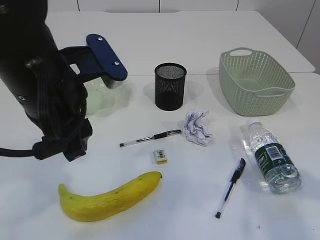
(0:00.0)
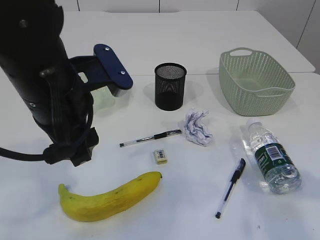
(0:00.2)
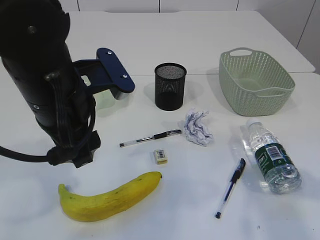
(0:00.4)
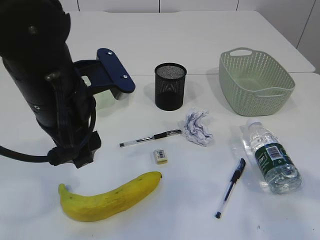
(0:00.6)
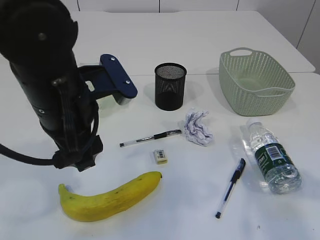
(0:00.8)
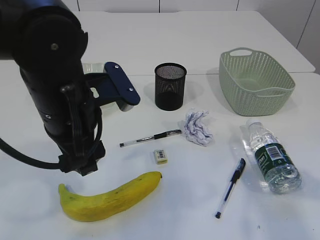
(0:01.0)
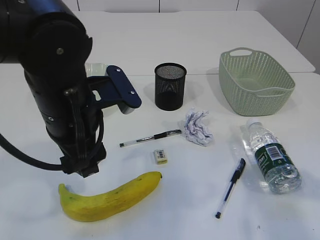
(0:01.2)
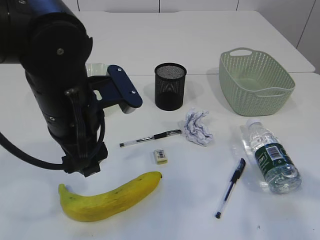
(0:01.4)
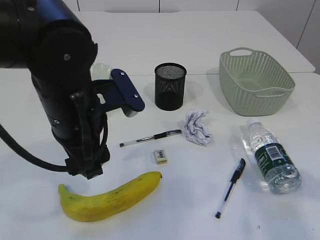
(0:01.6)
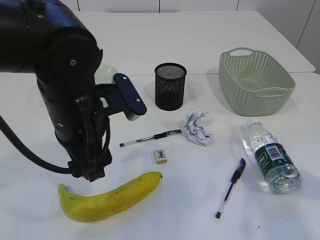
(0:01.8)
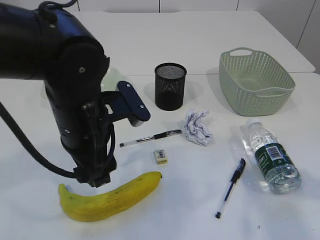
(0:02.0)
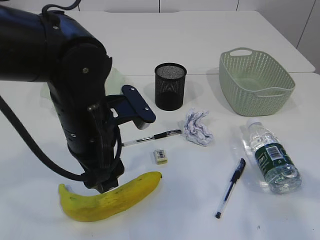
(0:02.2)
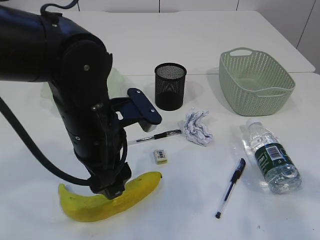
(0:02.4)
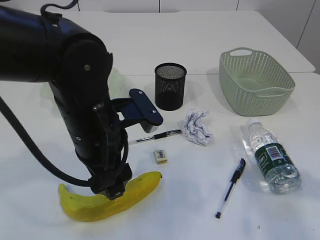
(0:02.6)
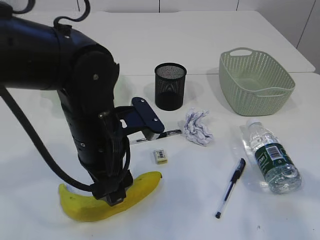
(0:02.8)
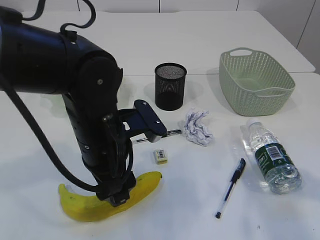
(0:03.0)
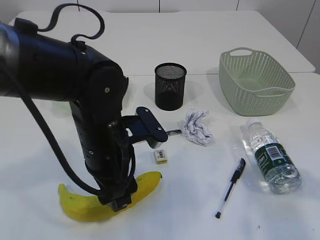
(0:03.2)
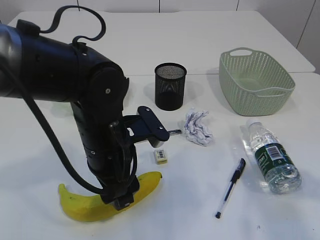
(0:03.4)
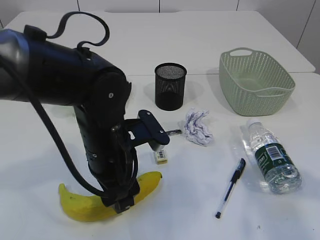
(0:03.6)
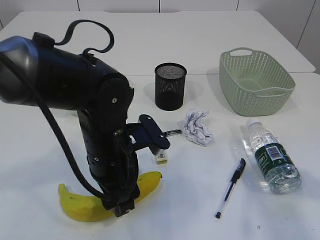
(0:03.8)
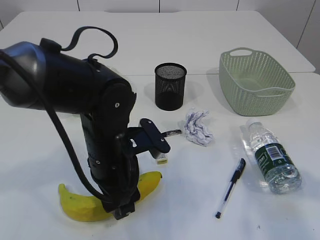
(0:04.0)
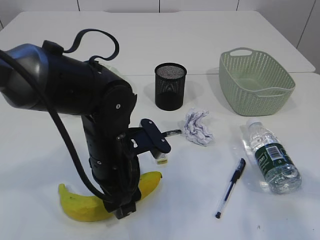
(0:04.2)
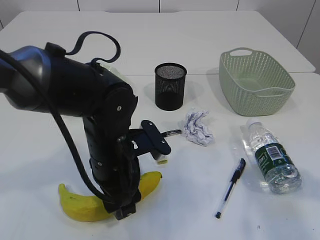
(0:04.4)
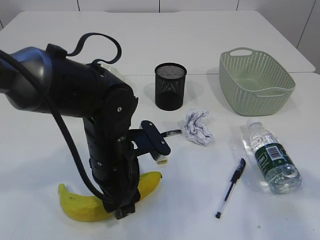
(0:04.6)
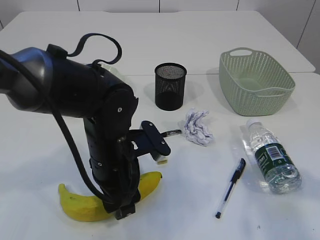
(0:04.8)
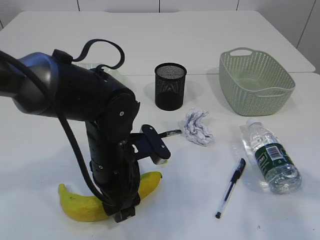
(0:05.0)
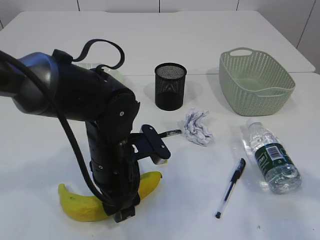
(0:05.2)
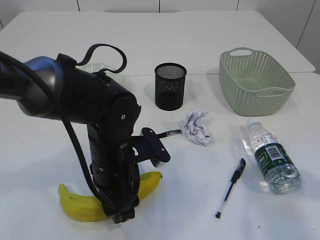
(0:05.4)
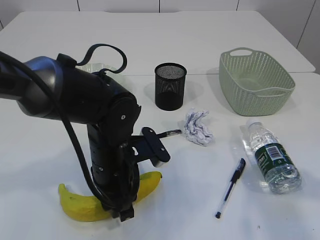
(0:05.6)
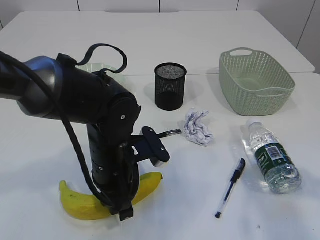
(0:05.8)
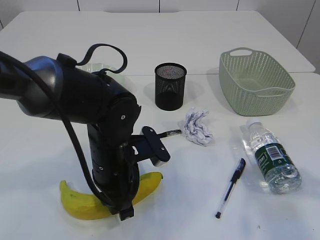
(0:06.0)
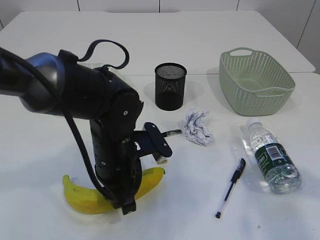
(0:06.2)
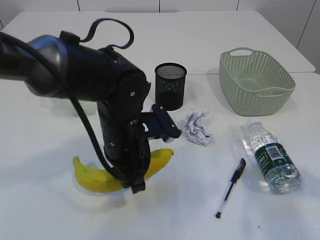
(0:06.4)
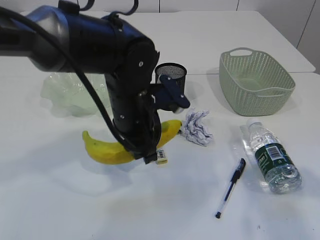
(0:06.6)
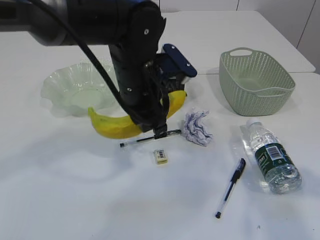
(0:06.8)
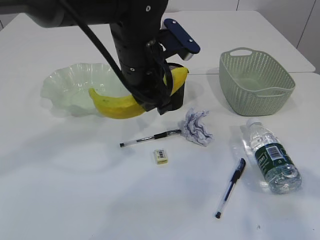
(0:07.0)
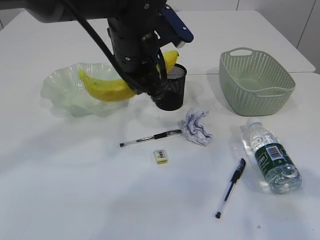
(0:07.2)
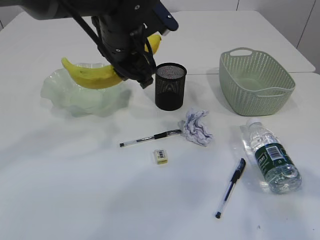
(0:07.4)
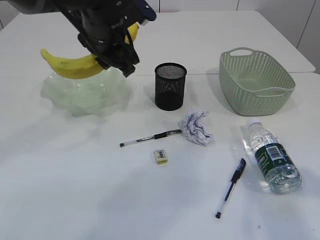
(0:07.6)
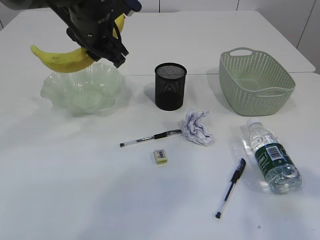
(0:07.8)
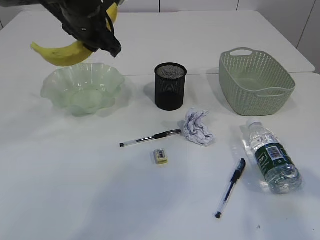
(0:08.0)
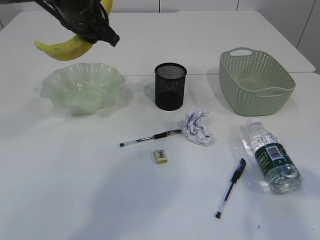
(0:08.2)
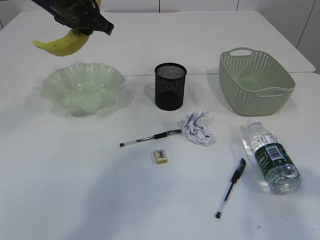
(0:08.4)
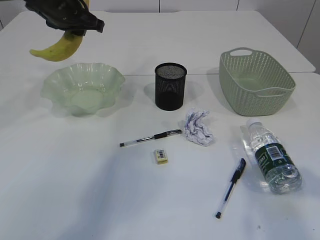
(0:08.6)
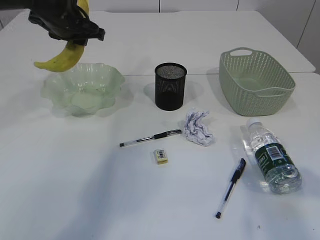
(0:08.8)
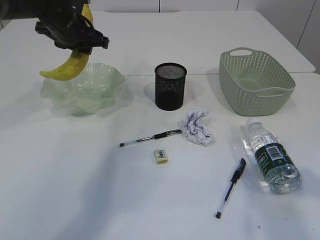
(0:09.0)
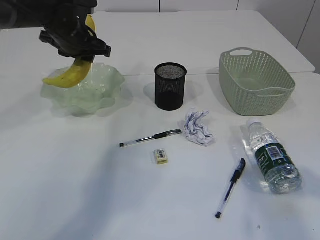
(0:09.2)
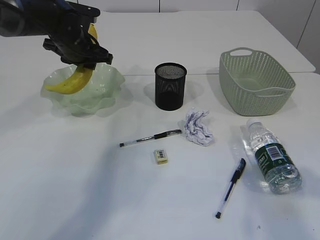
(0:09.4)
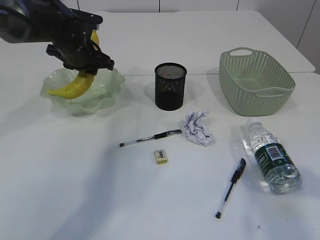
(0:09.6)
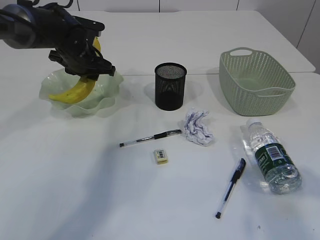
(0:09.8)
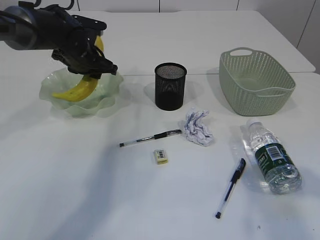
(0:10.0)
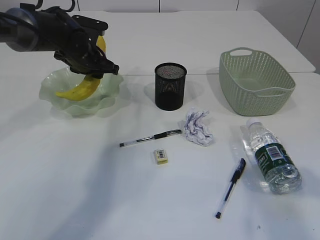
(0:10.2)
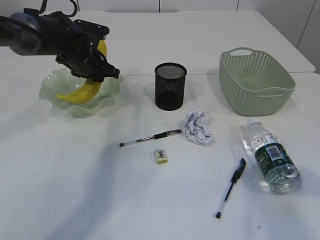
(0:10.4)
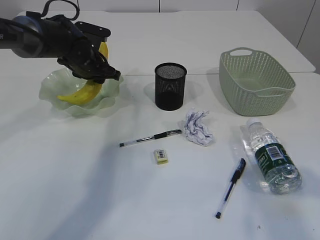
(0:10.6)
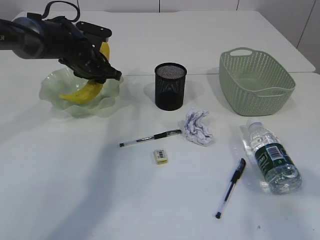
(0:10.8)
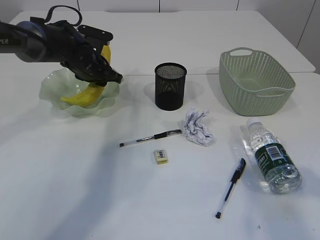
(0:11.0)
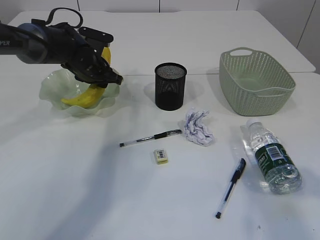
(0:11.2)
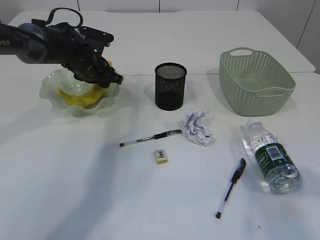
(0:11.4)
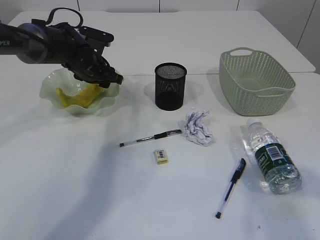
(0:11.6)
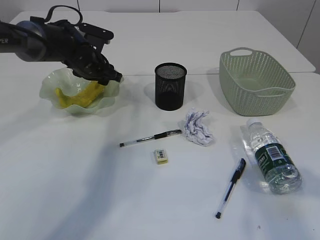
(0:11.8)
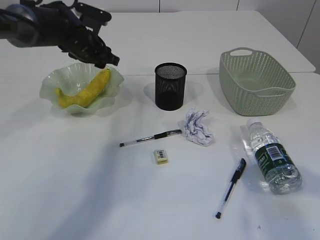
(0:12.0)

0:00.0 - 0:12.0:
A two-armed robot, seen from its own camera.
Step, 0:06.6 - 0:12.0: Place the banana in the plate.
0:00.0 - 0:01.6: The left gripper ends up roughly 5 cm from where it was.
0:01.6 - 0:03.0: The left gripper ends up approximately 5 cm from where it was.
0:03.0 - 0:04.4: The grippers move only a little.
0:04.4 - 0:06.0: The left gripper closes.
0:06.0 - 0:07.6: The left gripper shifts about 20 cm upward and forward.
0:07.6 - 0:09.0: The left gripper moves to the left and forward, about 15 cm.
0:09.0 - 0:10.4: The left gripper goes roughly 10 cm downward.
0:10.4 - 0:12.0: There are only small adjustments of the grippers.

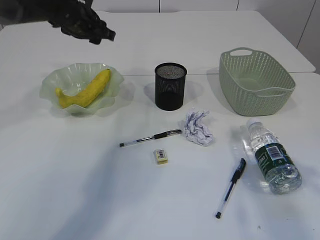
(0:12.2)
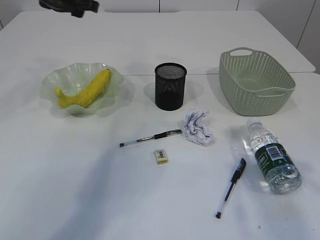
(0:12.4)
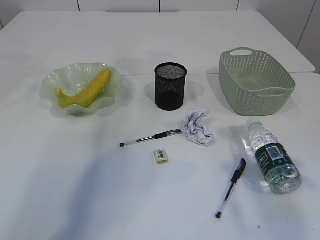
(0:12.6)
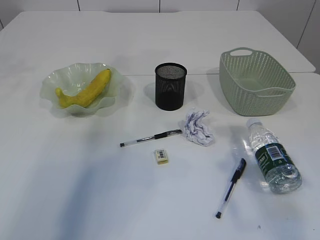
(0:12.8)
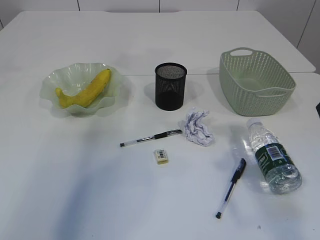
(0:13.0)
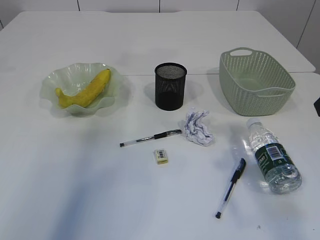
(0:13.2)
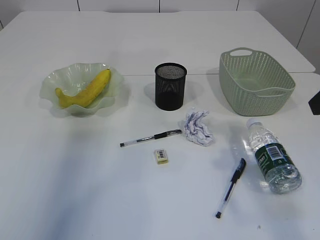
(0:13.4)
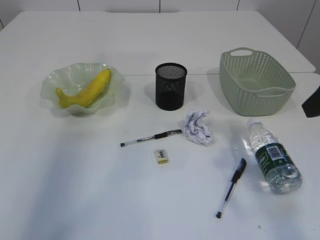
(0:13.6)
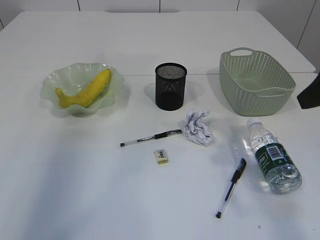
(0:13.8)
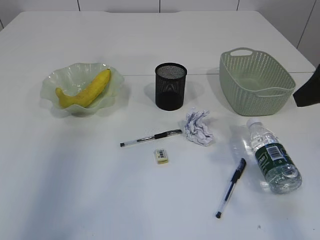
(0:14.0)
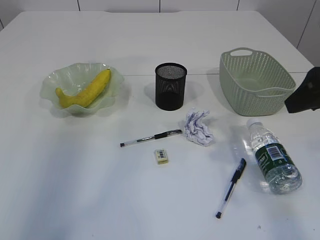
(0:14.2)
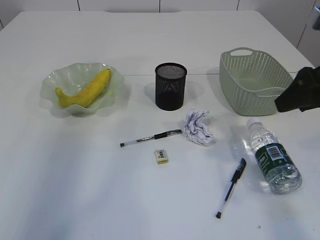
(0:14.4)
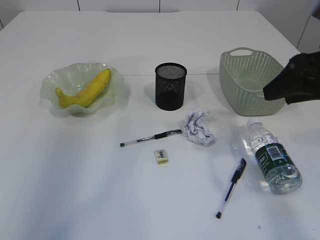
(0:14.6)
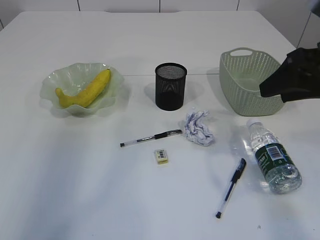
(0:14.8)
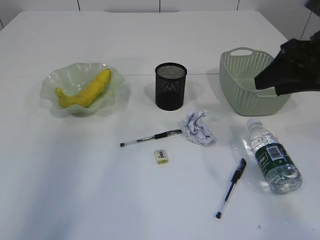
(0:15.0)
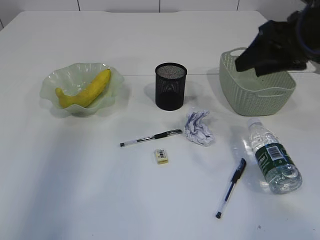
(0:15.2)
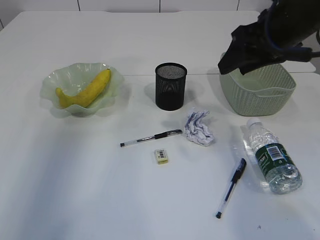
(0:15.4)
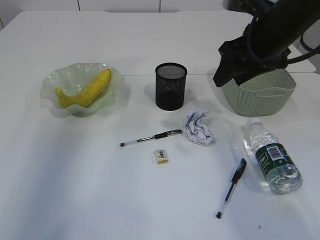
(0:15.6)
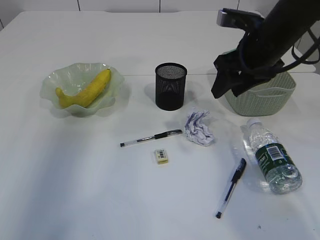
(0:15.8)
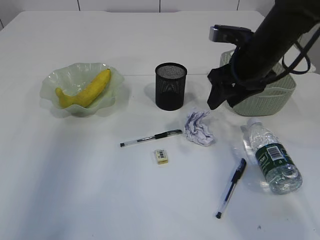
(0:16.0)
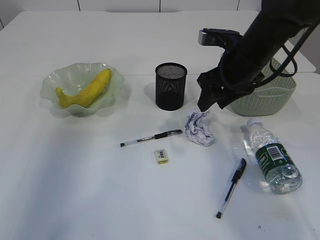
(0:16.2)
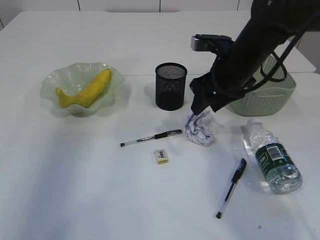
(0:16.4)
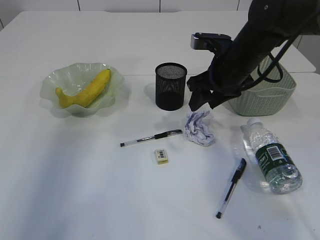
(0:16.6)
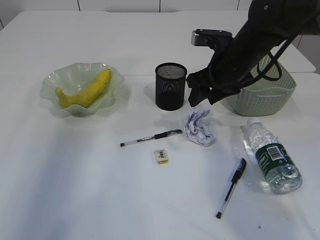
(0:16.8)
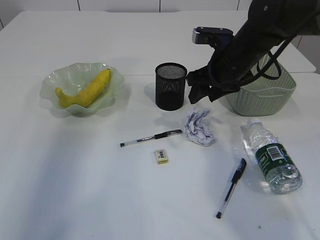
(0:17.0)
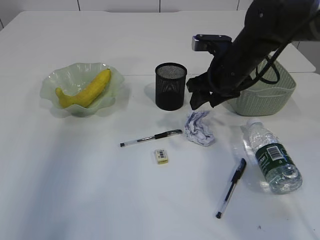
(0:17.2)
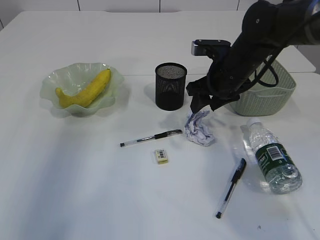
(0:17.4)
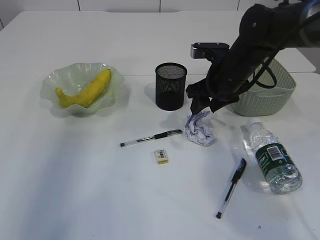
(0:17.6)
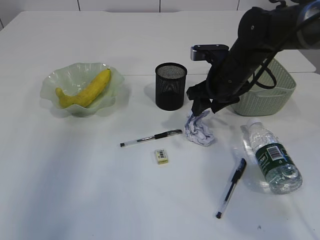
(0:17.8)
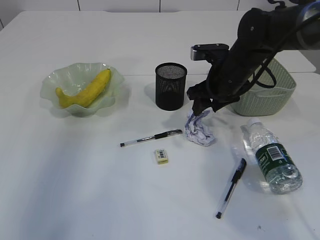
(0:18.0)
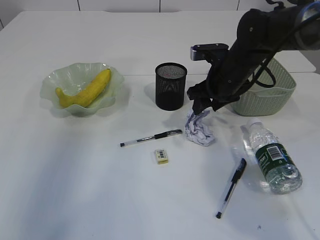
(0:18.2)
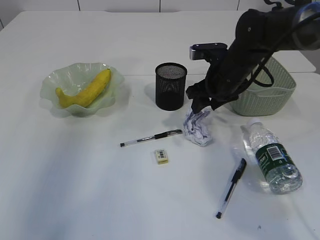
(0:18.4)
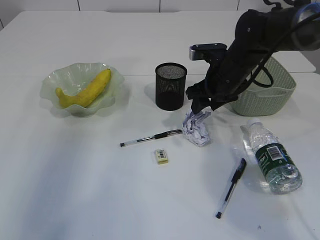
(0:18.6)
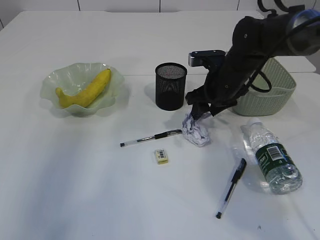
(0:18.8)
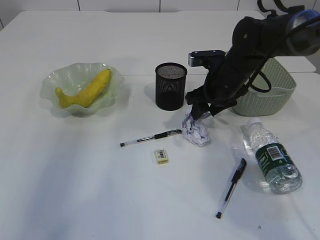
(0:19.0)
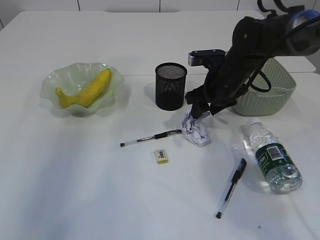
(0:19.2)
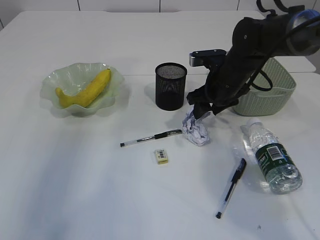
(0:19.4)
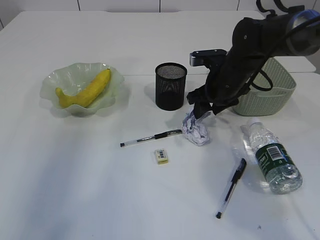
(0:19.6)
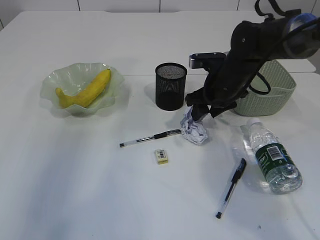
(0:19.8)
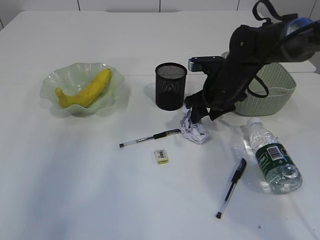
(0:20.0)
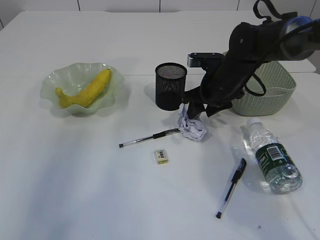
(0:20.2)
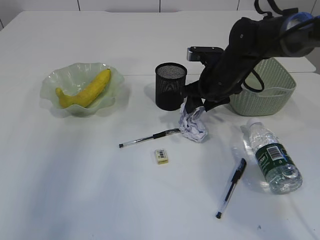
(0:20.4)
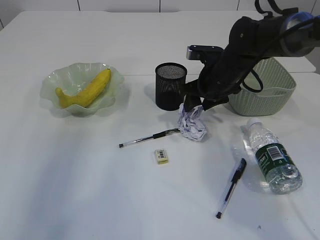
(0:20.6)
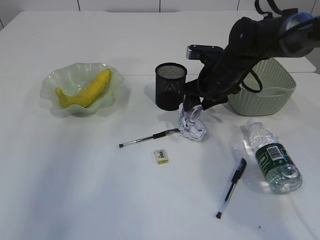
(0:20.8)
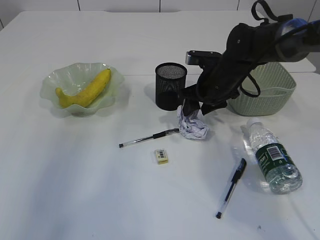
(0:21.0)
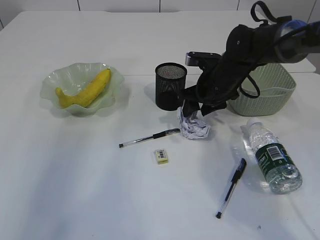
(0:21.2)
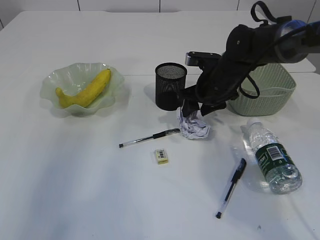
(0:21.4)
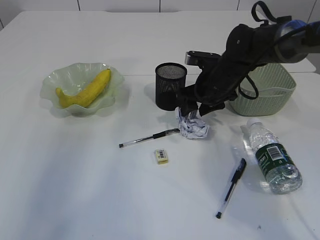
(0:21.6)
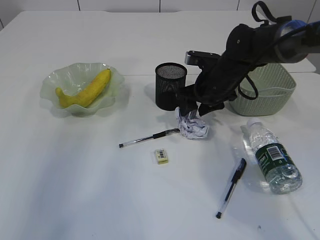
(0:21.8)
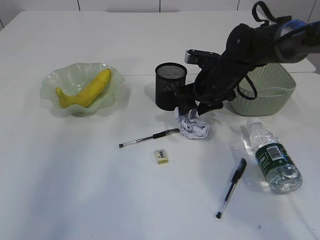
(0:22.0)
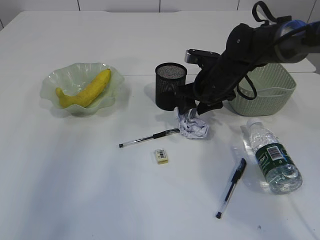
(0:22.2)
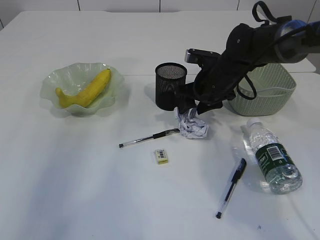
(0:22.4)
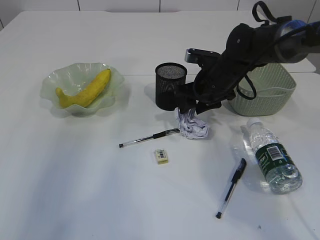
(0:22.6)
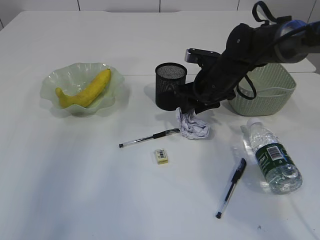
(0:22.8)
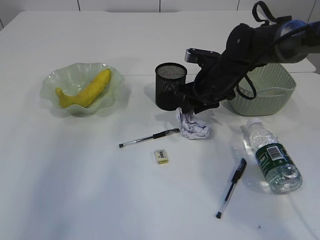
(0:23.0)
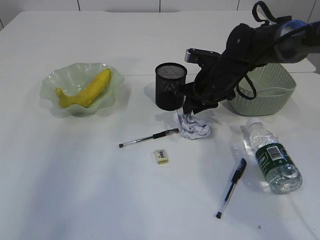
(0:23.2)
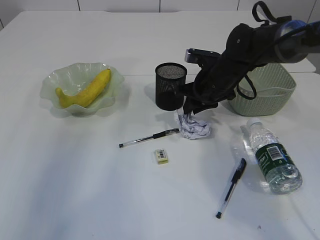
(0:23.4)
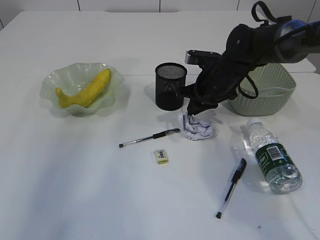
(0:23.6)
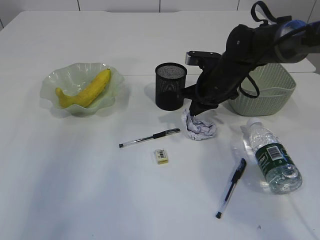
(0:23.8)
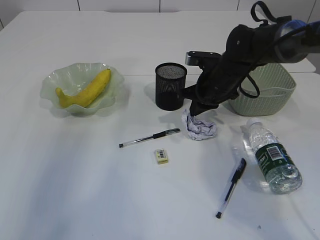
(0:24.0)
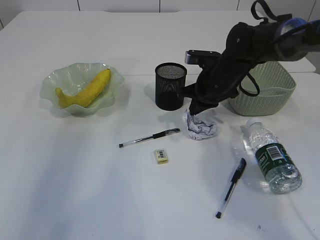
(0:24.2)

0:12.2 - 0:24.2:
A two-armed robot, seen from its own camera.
0:12.2 - 0:13.8: The right gripper travels forward by about 5 cm. The left gripper moves upward, to the left and backward, approximately 35 cm.
0:13.8 - 0:15.2: The right gripper is displaced forward by approximately 10 cm.
0:15.2 - 0:16.6: The right gripper travels downward, forward and to the left by some 15 cm.
0:16.6 - 0:18.2: The grippers stay close to where they were, moving slightly.
0:18.2 - 0:21.2: The grippers move only a little.
0:21.2 - 0:22.6: Both grippers stay put.
0:22.6 - 0:24.2: The right gripper closes up.
